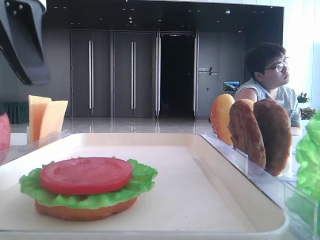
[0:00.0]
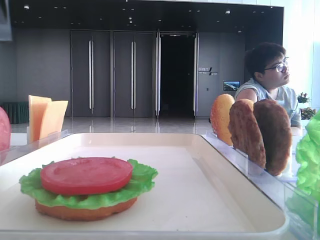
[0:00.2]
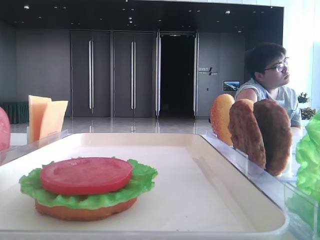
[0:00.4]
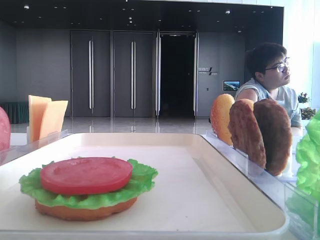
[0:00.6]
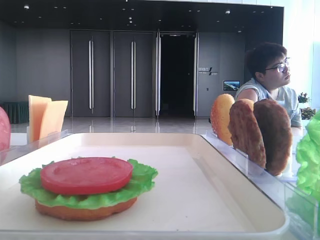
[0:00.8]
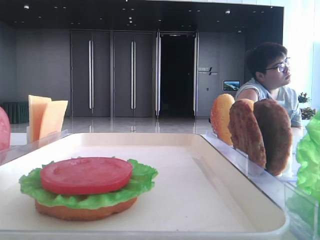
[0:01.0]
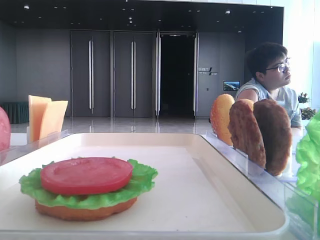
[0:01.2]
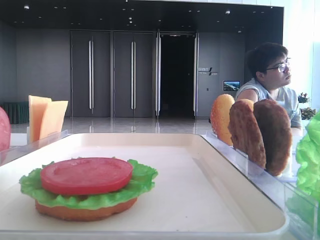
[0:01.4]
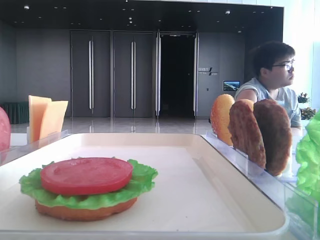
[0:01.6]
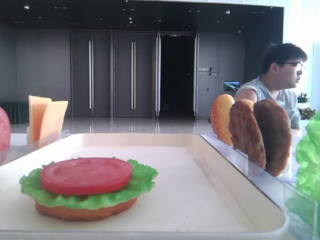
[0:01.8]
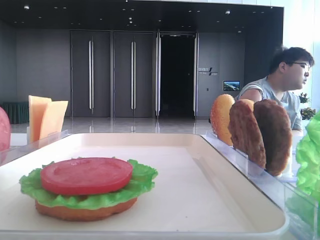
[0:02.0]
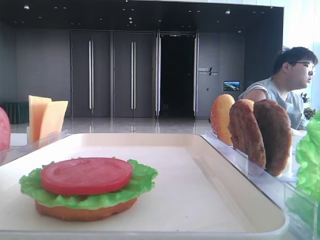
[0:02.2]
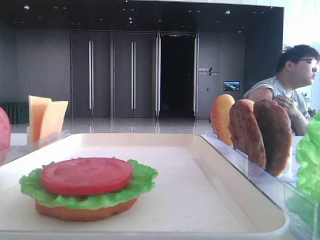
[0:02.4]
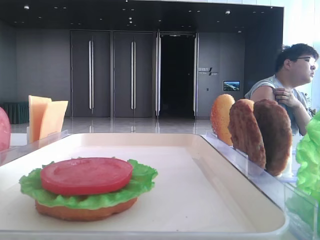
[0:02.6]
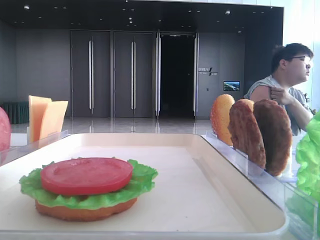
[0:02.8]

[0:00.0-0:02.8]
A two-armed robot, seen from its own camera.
0:00.0 to 0:01.4: The left gripper shifts about 20 cm to the left, backward and upward.

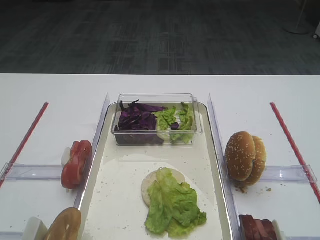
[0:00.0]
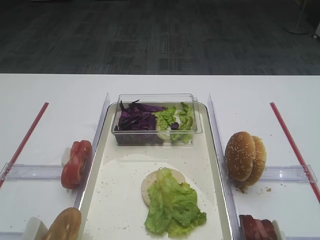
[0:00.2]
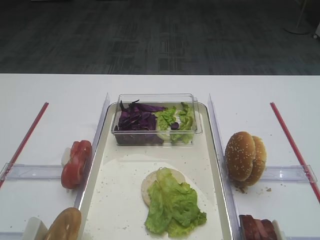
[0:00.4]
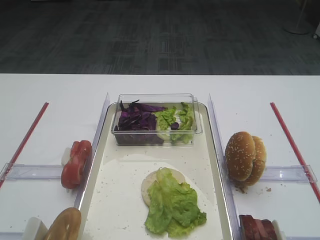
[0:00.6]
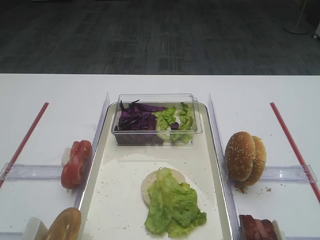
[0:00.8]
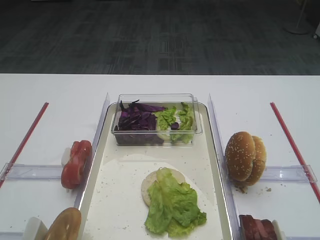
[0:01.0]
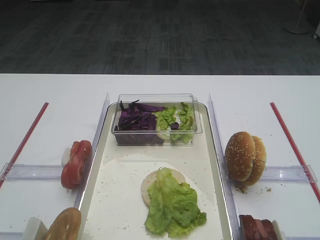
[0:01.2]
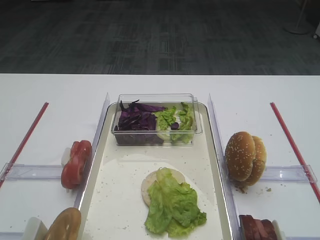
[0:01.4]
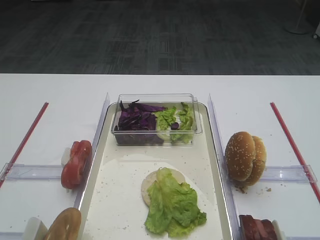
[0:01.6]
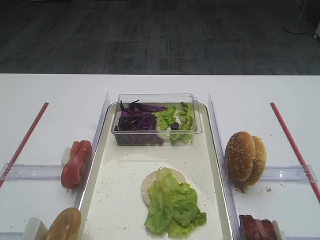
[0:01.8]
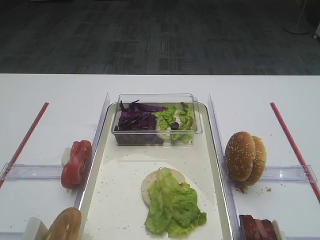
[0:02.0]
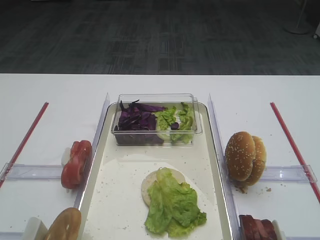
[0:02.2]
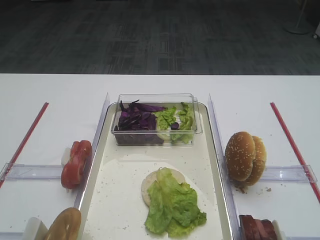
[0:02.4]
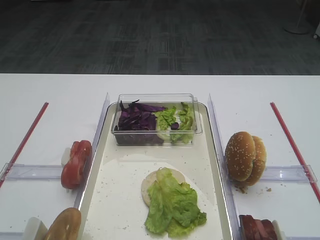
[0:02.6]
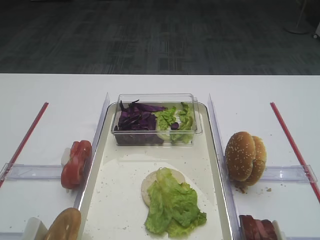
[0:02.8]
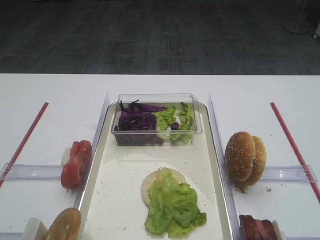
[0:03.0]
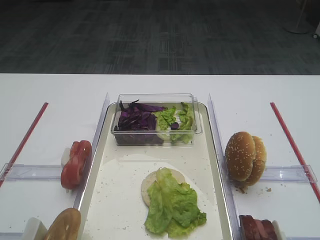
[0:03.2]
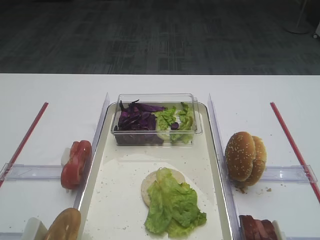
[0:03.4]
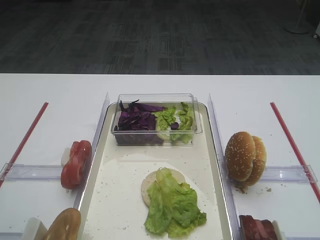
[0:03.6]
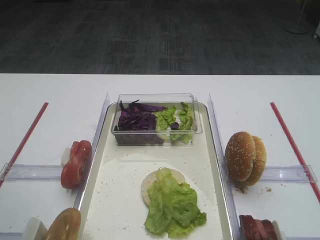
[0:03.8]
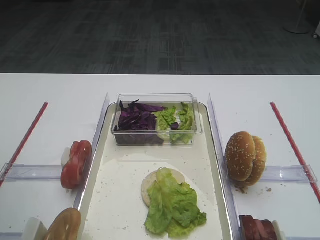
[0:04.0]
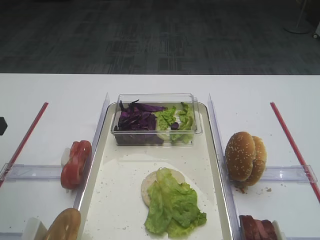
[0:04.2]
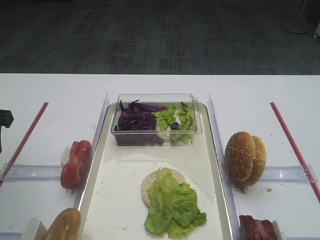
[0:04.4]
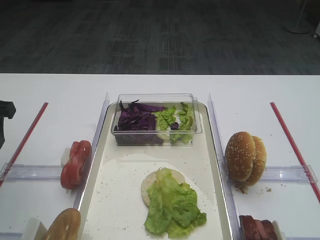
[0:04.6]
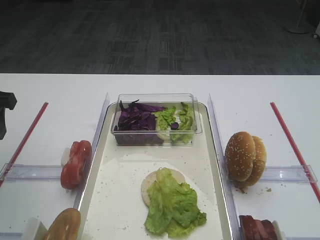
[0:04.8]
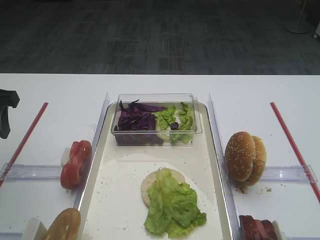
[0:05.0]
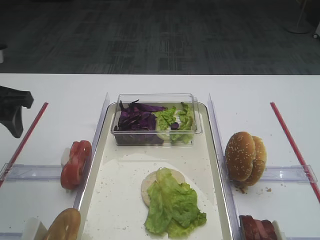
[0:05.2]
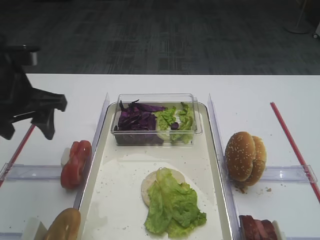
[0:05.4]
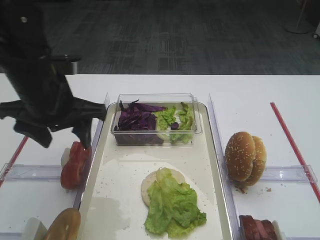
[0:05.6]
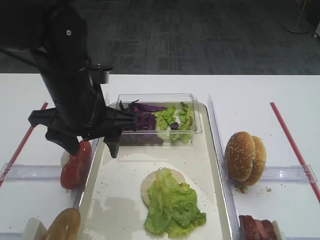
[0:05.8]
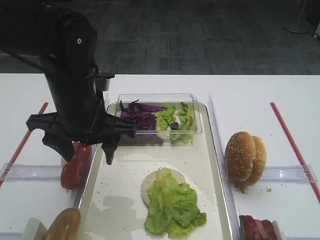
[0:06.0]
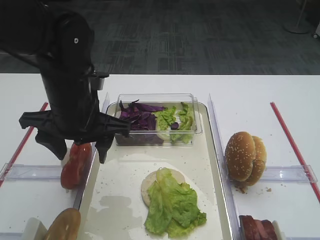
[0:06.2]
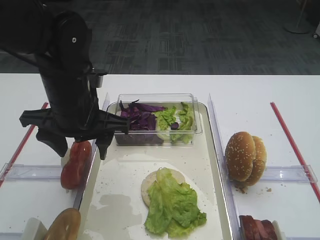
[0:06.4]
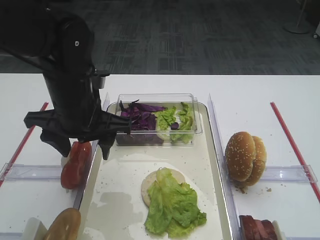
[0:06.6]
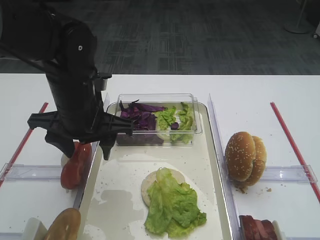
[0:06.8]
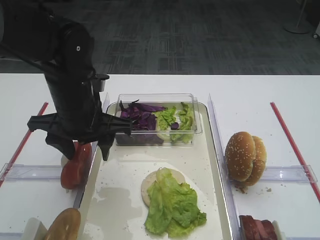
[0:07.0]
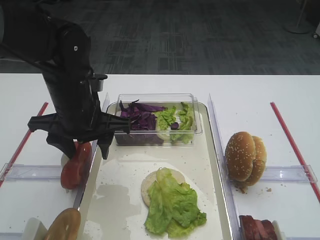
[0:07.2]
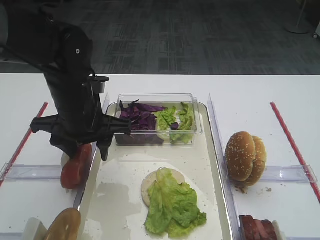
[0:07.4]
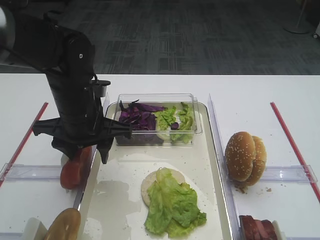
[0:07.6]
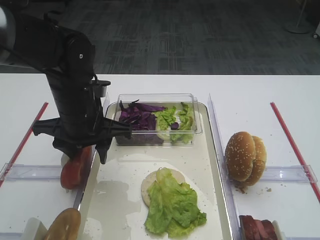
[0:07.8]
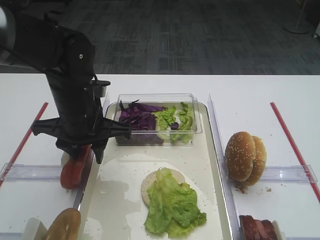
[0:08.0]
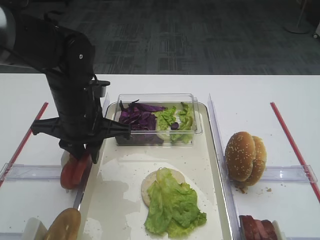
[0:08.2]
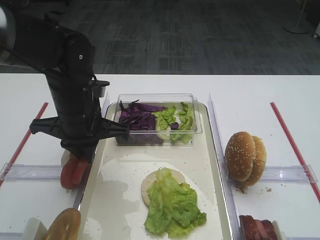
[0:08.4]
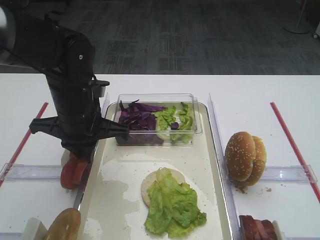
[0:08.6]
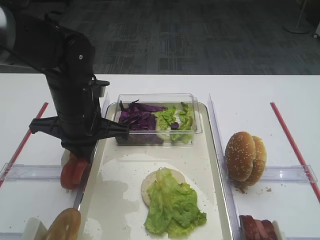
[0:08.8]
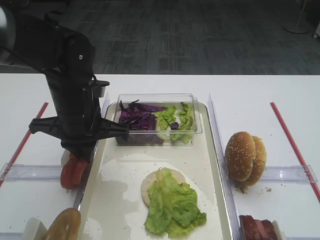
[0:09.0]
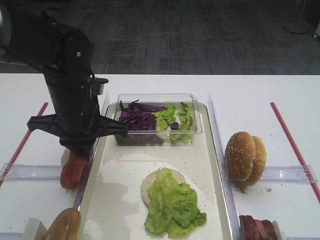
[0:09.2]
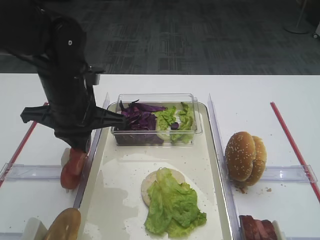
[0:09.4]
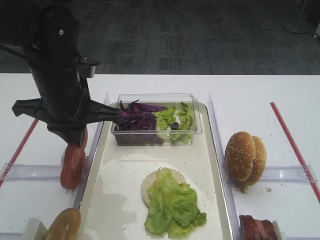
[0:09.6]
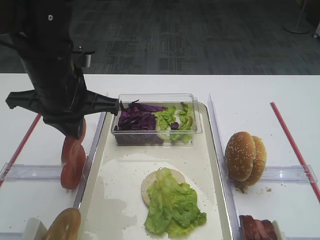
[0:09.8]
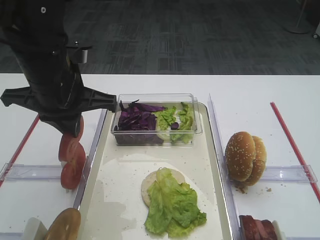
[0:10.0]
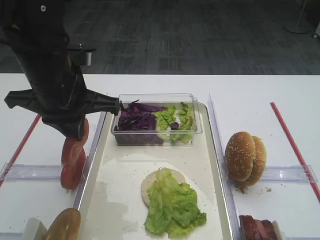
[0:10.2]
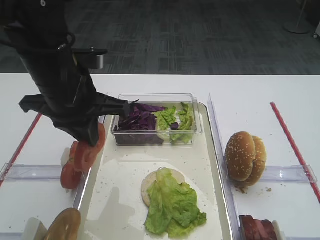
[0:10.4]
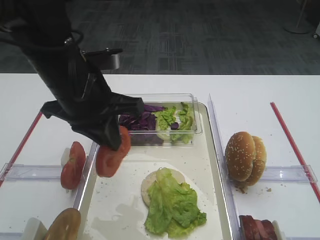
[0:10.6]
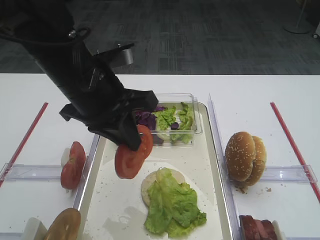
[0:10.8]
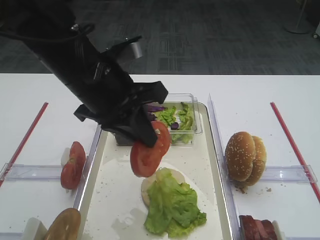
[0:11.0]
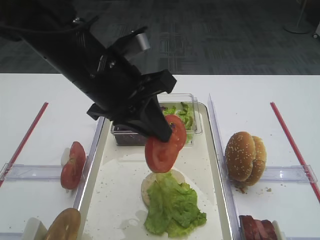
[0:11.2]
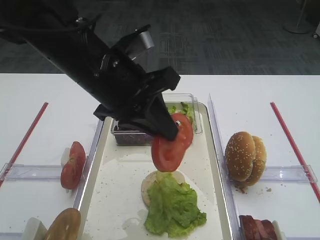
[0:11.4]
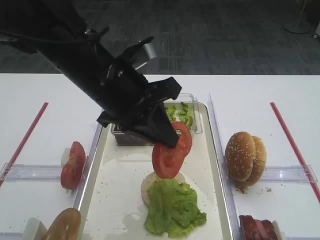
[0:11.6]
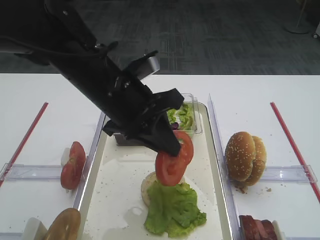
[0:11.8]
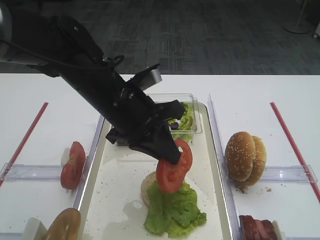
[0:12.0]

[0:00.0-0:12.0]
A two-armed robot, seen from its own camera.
Step, 0:00.0 to 0:10.0: Pick up the tomato slice with the left gripper.
0:03.0 to 0:04.4: The left gripper heads forward, covering roughly 15 cm.
0:04.4 to 0:06.0: The left gripper goes roughly 20 cm to the right.
0:06.0 to 0:07.6: There are only small adjustments of the grippers.
0:07.6 to 0:09.0: The left gripper closes.
0:09.0 to 0:10.4: The left gripper shifts about 5 cm upward.
0:10.4 to 0:12.0: The left gripper moves to the right, some 5 cm.

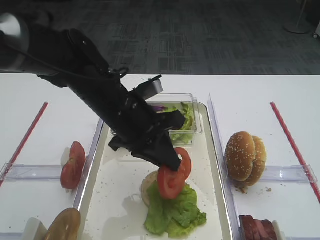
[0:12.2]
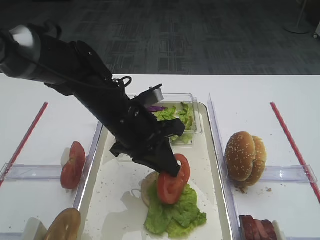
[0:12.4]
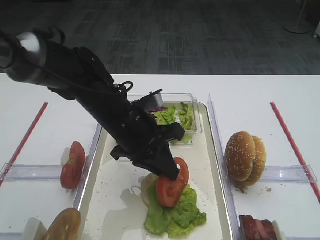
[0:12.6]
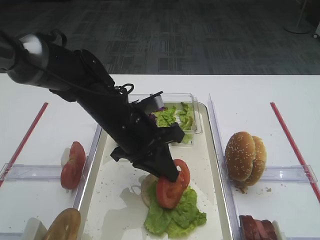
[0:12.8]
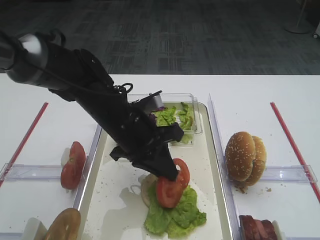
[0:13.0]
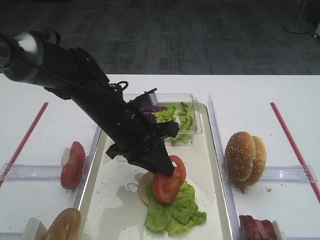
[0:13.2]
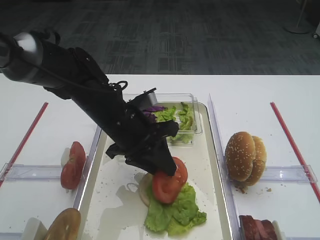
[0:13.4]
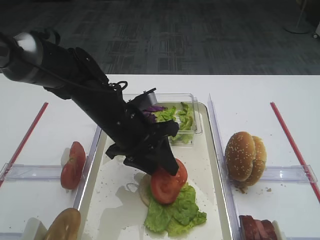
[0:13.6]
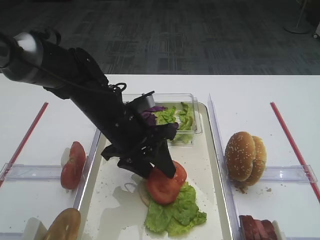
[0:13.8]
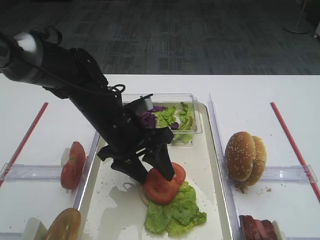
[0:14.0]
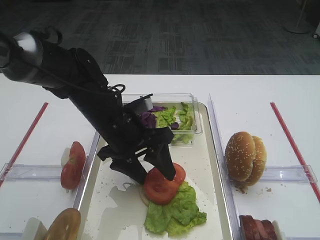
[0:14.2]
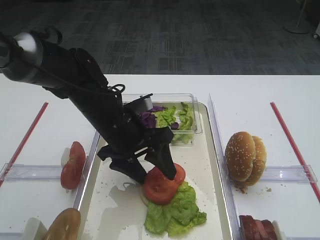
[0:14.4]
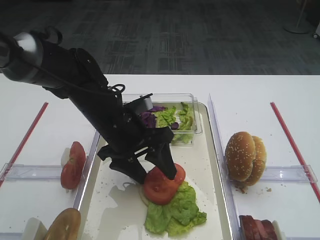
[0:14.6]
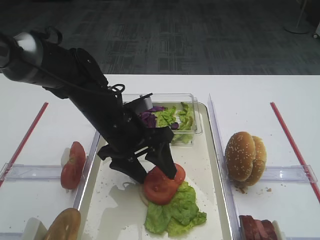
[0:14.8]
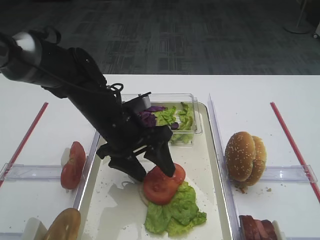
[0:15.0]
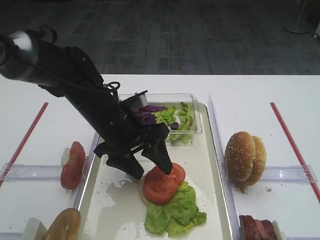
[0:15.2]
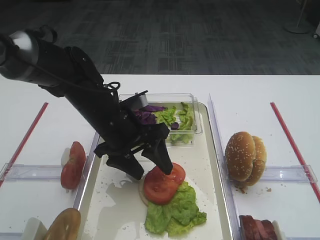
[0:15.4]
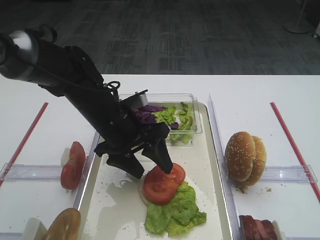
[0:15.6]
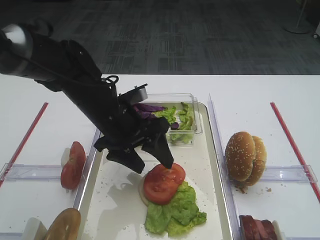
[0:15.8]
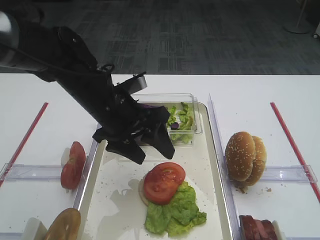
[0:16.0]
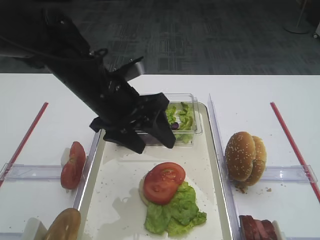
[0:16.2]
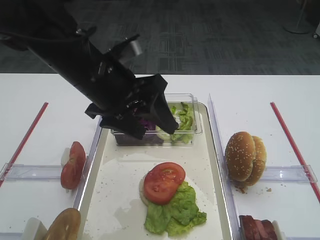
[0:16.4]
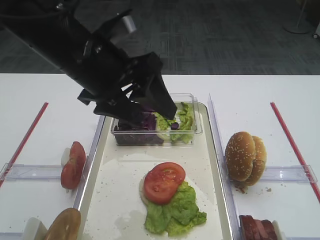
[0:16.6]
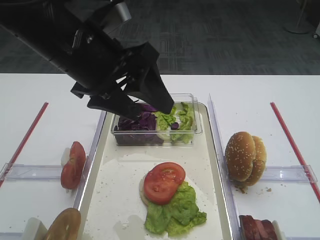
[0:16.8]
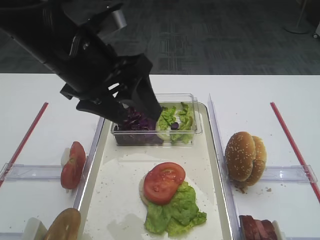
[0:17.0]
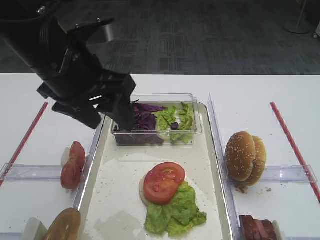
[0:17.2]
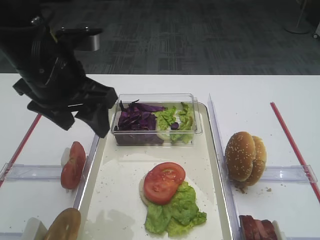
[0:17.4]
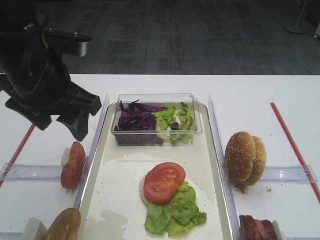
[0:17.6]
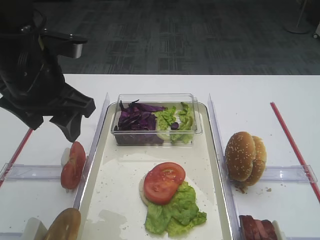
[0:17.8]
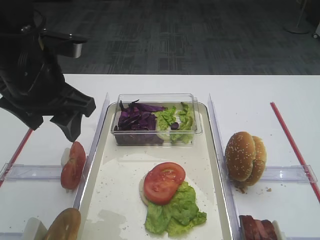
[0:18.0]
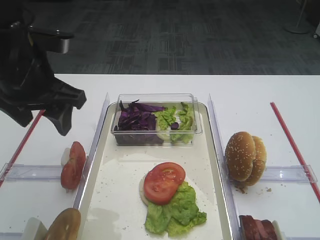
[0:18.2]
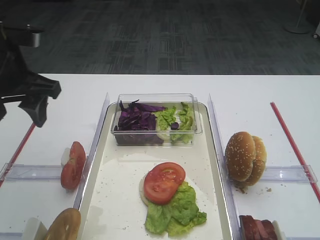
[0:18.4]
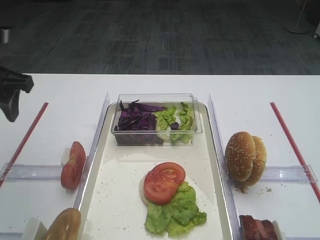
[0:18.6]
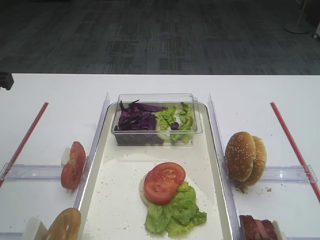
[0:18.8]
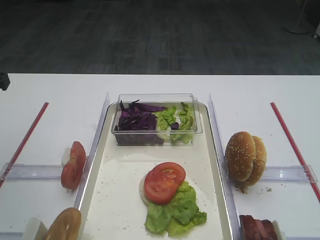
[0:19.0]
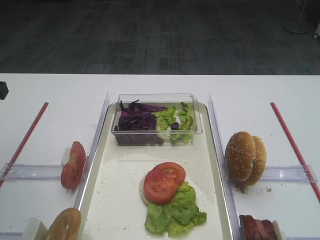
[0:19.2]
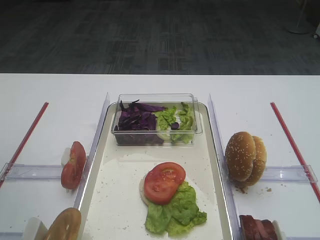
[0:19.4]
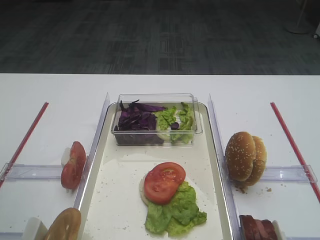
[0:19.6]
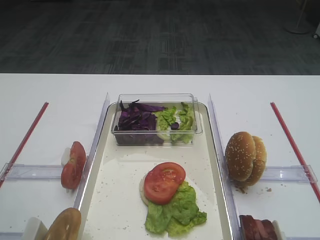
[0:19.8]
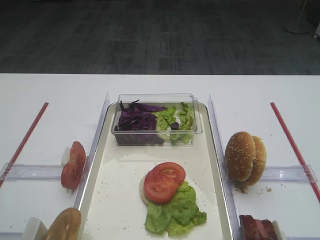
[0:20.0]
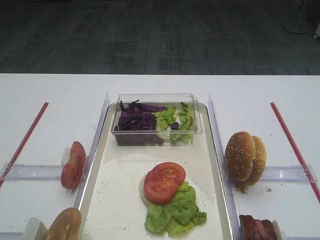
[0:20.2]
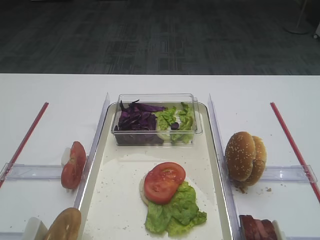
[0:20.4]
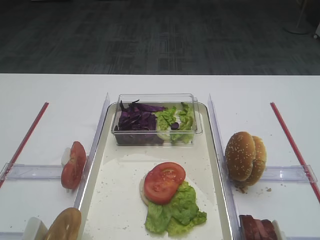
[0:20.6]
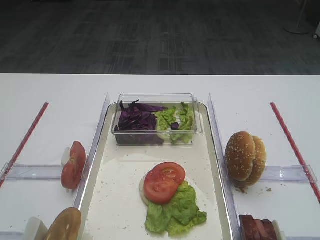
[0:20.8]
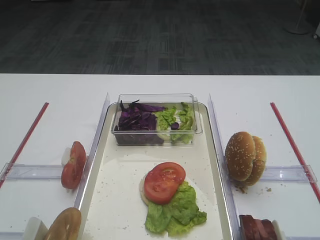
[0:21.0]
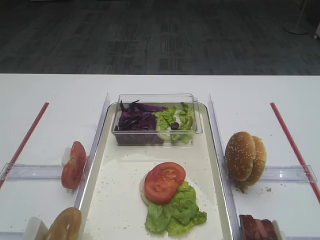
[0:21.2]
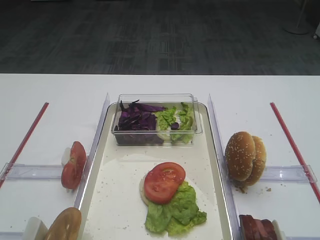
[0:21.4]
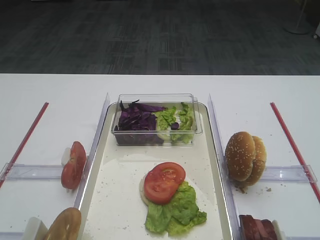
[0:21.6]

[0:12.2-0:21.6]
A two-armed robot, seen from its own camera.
Step, 0:12.2 to 0:15.8: Place the tomato slice on the lettuce leaf with the left gripper.
0:12.2 to 0:13.8: The left gripper opens.
0:13.8 to 0:15.4: Both grippers stay put.
0:15.4 to 0:17.0: The left gripper travels upward by roughly 15 cm.
0:17.0 to 0:18.4: The left gripper shifts about 10 cm to the left.
0:18.4 to 0:20.0: The left gripper is displaced backward and to the left by some 15 cm.
